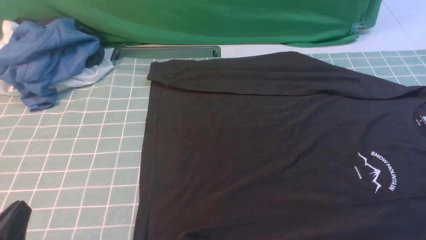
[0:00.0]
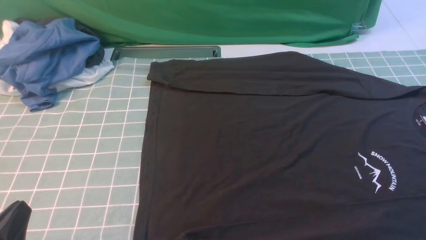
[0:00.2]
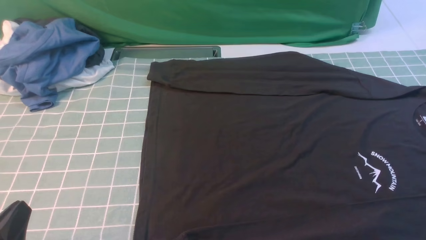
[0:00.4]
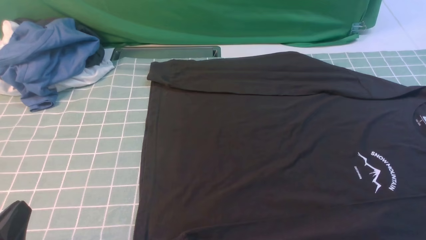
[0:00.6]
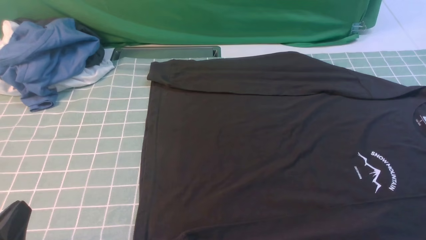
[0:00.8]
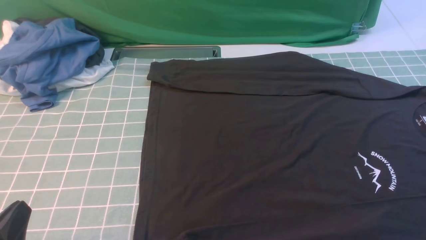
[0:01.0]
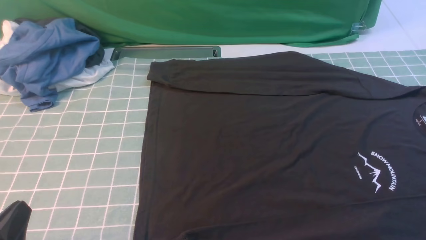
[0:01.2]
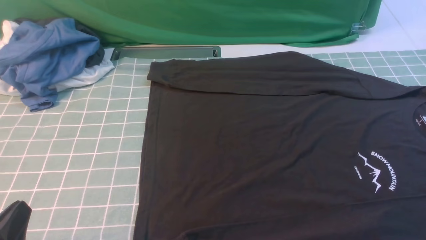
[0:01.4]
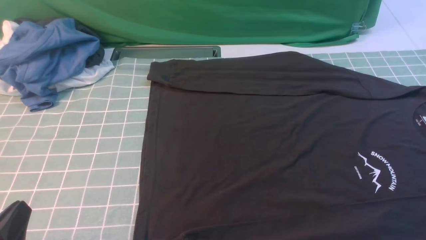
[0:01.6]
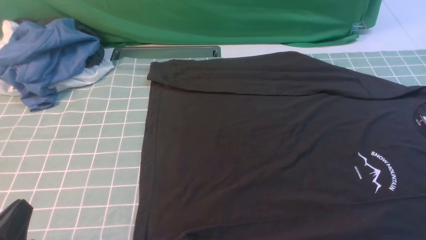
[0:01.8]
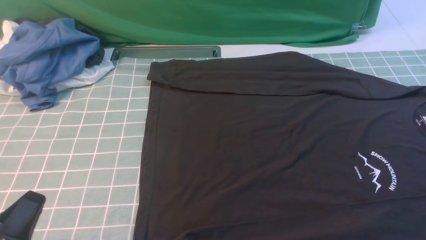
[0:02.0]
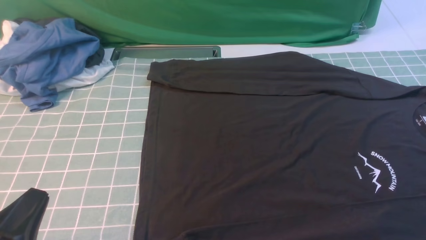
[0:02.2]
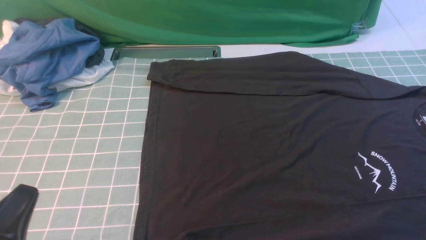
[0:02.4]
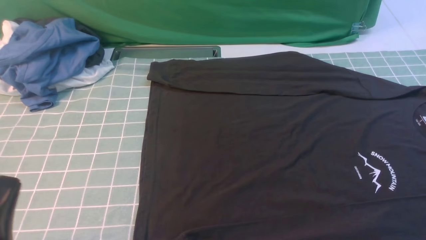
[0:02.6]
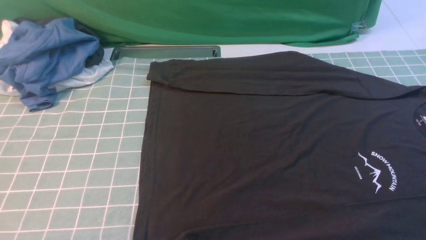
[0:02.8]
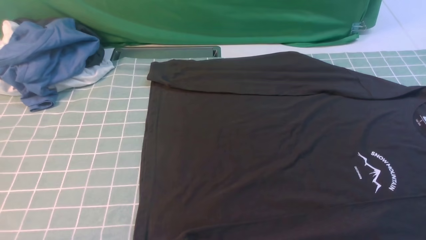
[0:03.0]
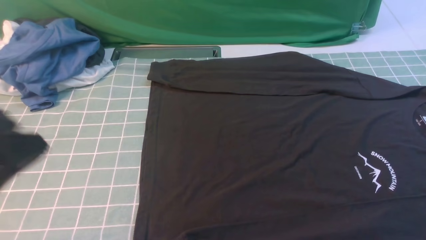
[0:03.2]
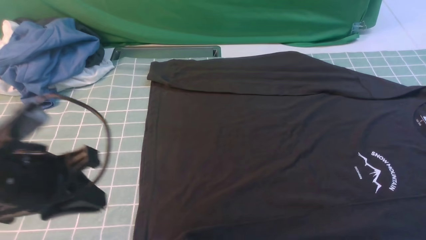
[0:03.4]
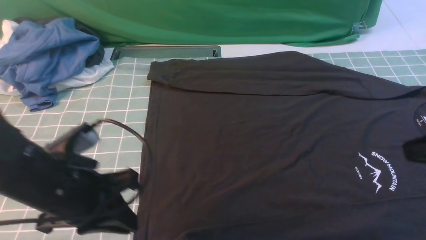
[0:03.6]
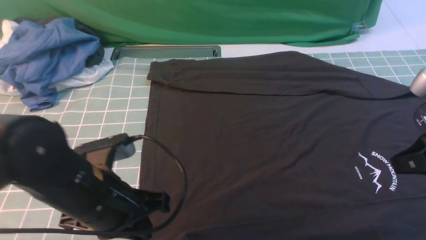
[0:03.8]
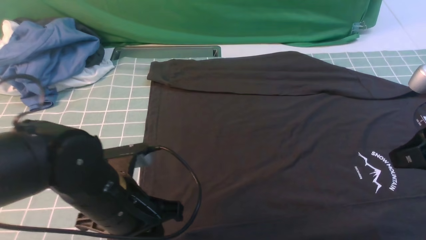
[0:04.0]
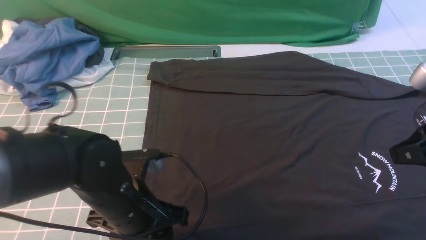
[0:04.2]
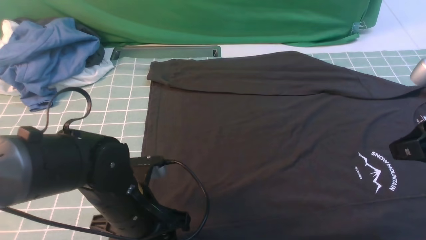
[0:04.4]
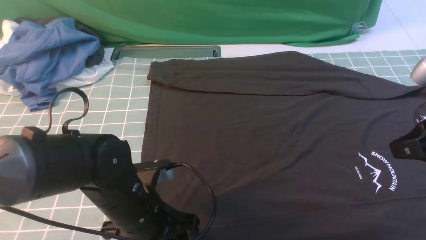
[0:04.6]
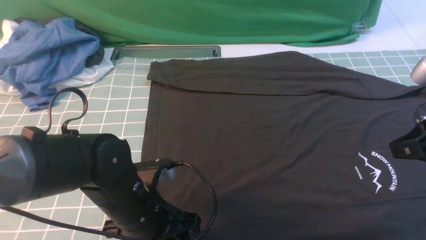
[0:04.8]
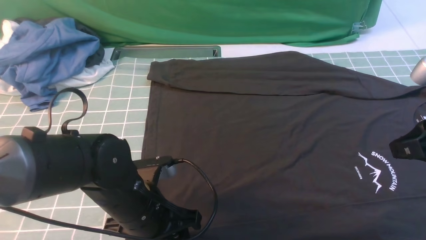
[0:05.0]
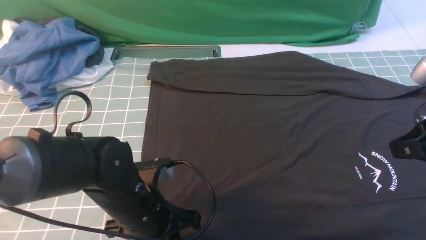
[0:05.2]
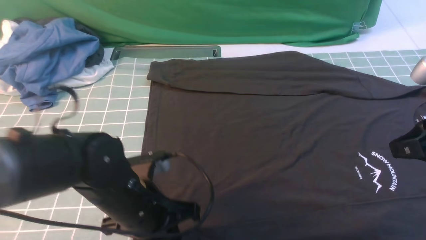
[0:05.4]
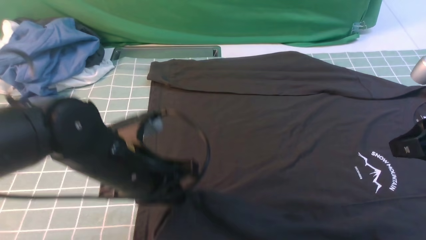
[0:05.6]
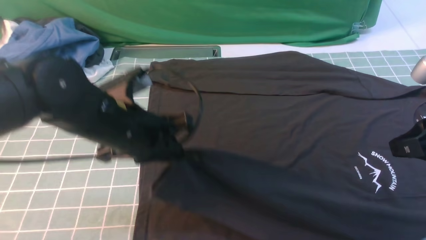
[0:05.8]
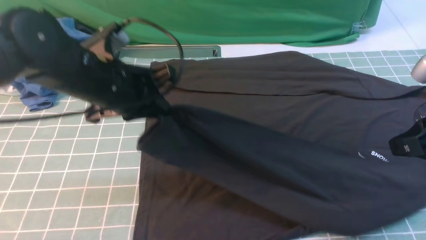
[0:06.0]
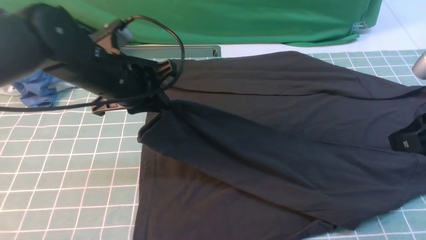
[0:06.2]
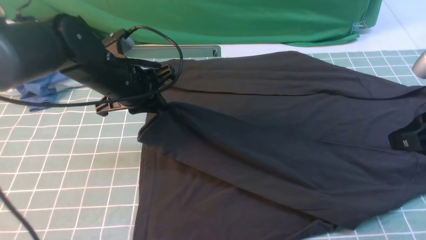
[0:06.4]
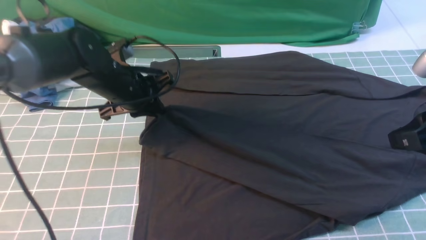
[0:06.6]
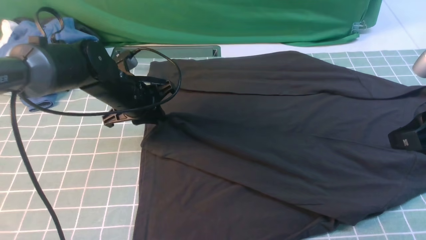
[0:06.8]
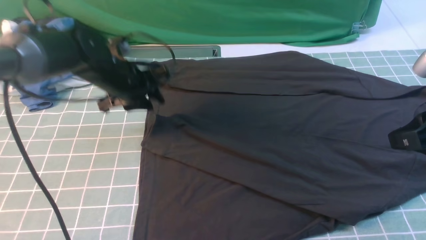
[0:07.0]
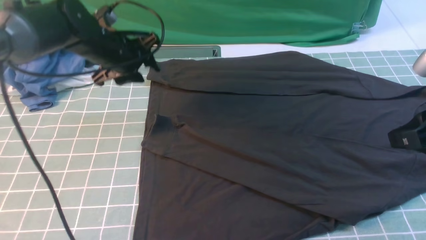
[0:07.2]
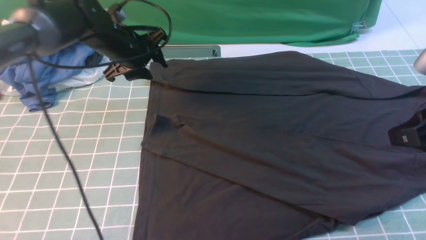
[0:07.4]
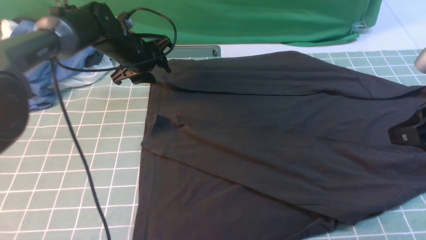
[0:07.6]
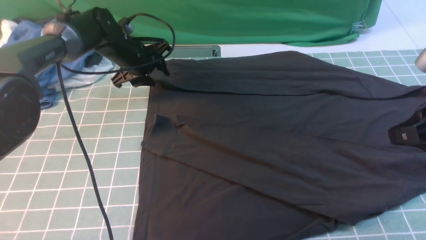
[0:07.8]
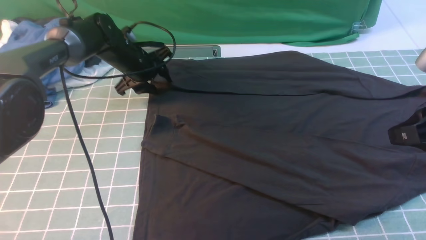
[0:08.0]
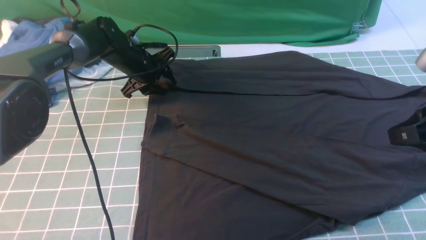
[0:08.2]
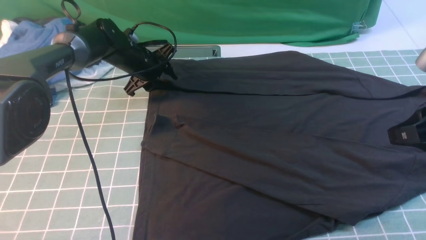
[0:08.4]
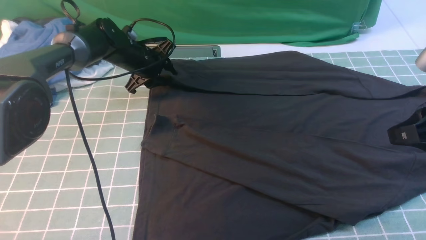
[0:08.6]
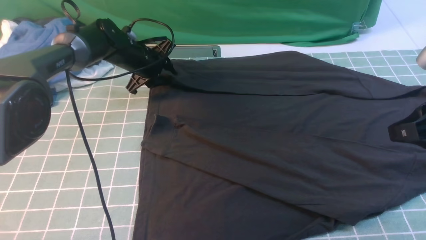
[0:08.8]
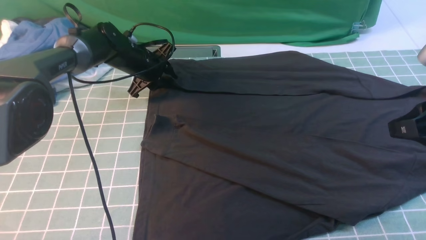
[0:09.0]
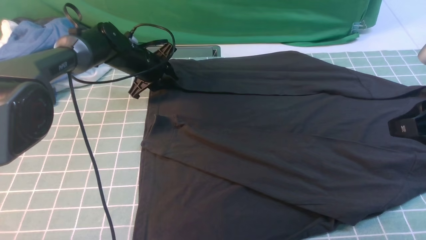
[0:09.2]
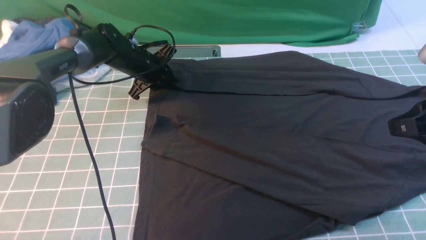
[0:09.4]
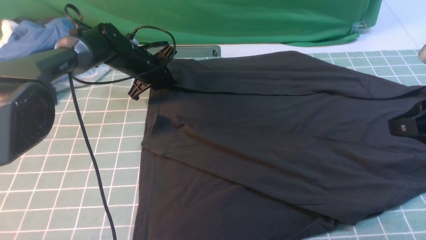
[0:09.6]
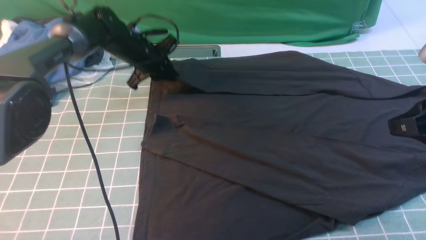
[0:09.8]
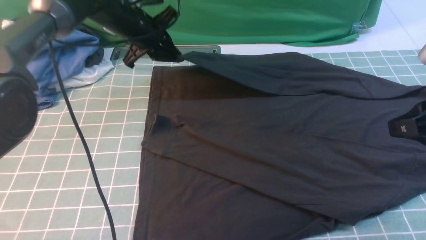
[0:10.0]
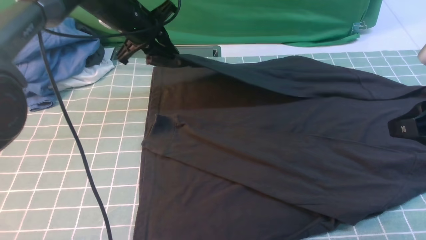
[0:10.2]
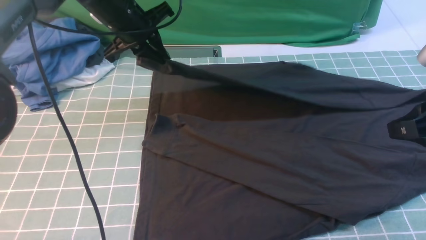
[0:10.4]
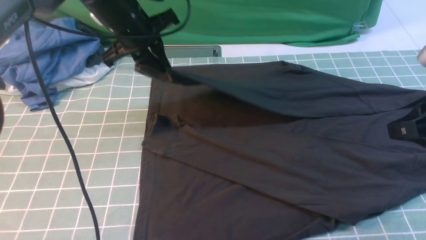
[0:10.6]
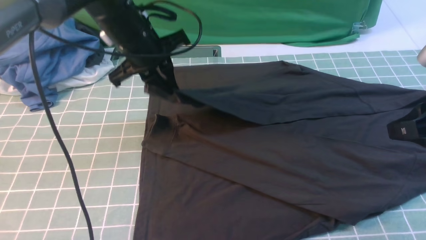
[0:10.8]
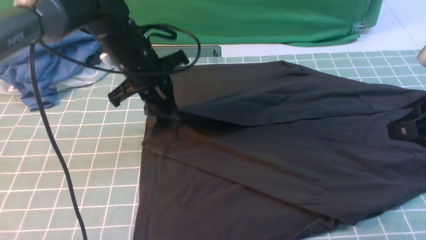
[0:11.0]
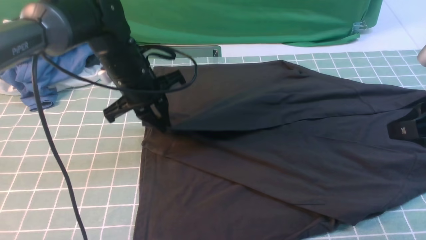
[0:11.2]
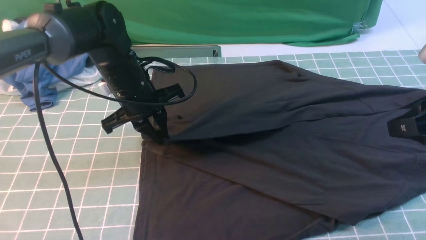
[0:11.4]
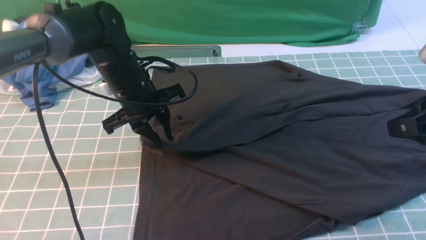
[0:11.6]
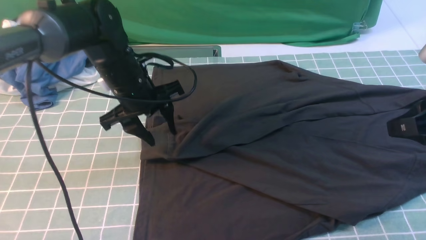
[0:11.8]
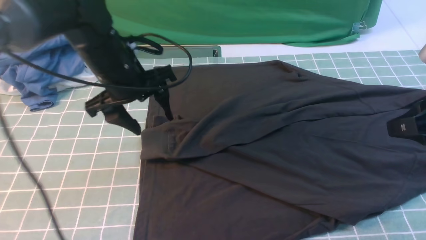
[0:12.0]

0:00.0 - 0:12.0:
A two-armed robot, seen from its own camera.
Step, 0:00.0 - 0:05.4: use the left arm to clamp the cuff closest to it.
Step, 0:05.6 - 0:07.0: use the left arm to drag and place the cuff at the centered position on the left edge of the fabric.
Step, 0:07.2 - 0:09.8: use the left arm to clamp the cuff farthest from it.
0:00.0 - 0:01.6: Neither gripper changes place.
0:01.6 - 0:03.0: The left gripper shifts roughly 10 cm upward.
0:03.0 - 0:04.4: The right gripper travels forward by approximately 15 cm. The left gripper travels downward, to the right and forward by approximately 25 cm, and opens.
0:04.4 - 0:06.0: The left gripper goes approximately 15 cm upward and forward, and closes.
0:06.0 - 0:07.6: The left gripper goes some 20 cm forward and downward, and opens its fingers.
0:07.6 - 0:09.0: There are only small adjustments of the grippers.
0:09.0 - 0:10.4: The left gripper moves upward and backward, approximately 15 cm, and closes.
0:10.4 - 0:12.0: The left gripper goes approximately 10 cm backward, and opens up.

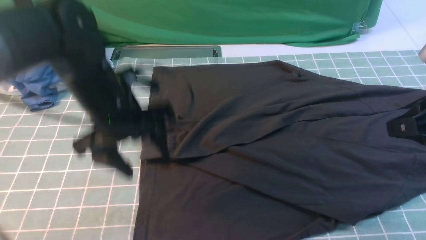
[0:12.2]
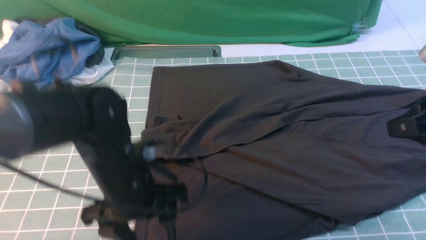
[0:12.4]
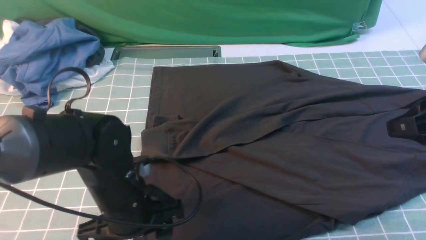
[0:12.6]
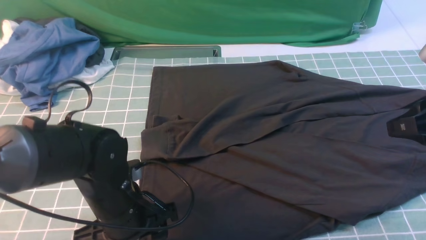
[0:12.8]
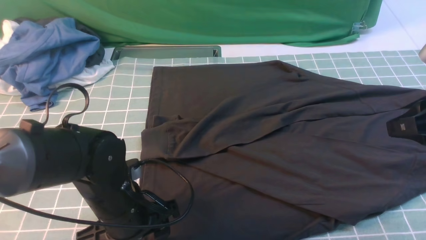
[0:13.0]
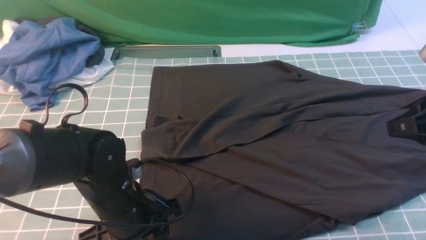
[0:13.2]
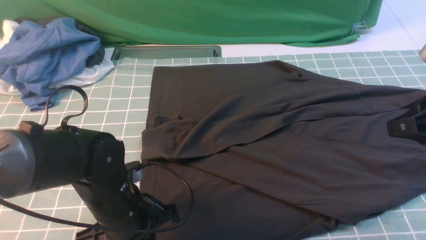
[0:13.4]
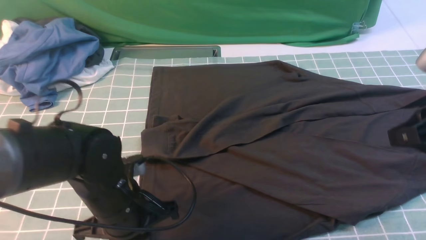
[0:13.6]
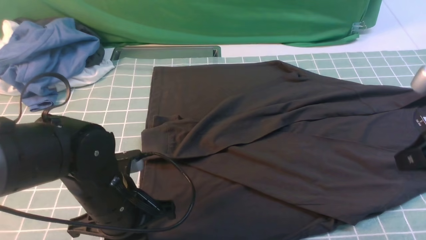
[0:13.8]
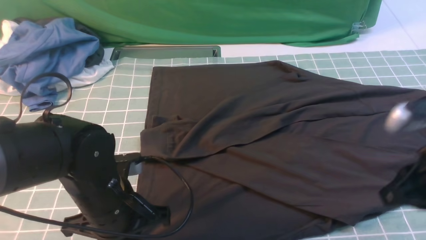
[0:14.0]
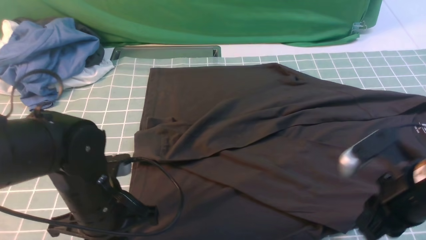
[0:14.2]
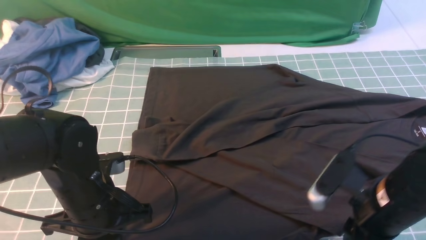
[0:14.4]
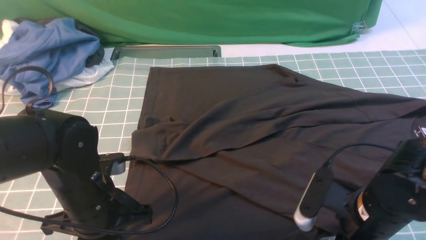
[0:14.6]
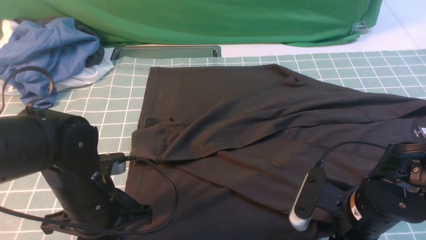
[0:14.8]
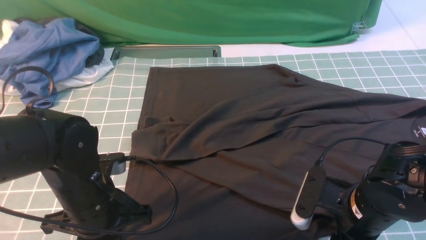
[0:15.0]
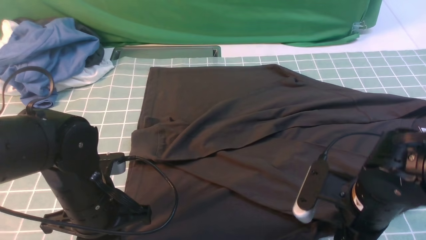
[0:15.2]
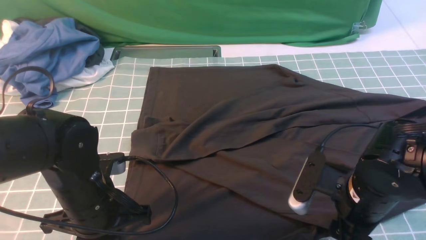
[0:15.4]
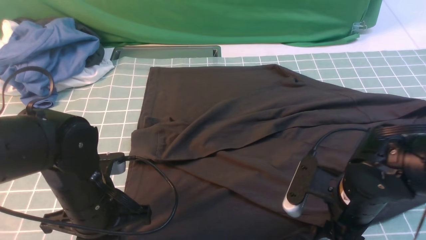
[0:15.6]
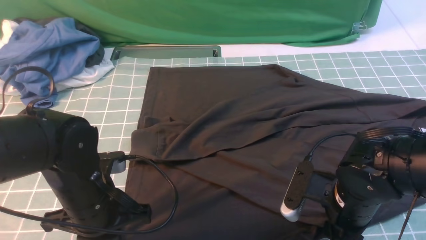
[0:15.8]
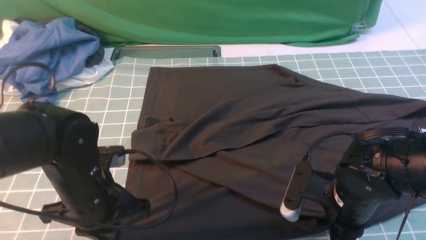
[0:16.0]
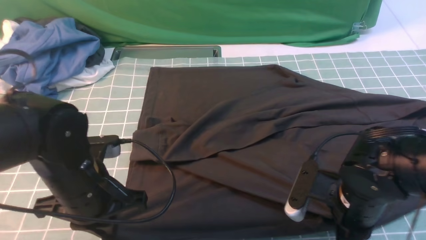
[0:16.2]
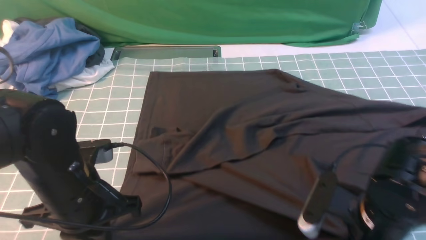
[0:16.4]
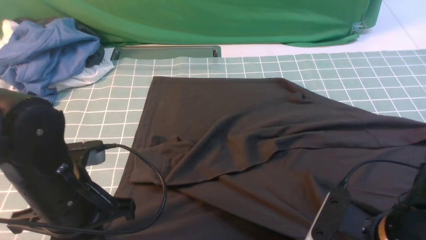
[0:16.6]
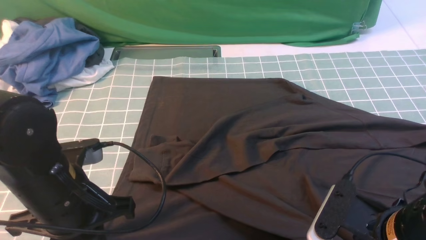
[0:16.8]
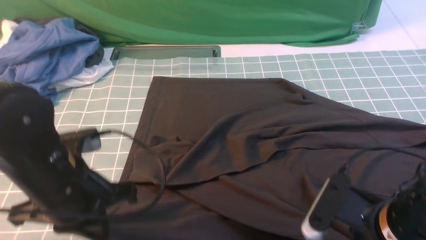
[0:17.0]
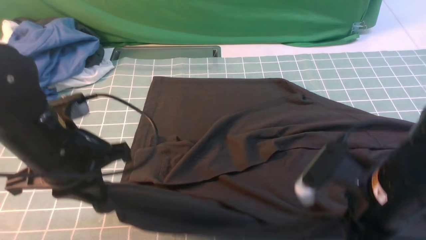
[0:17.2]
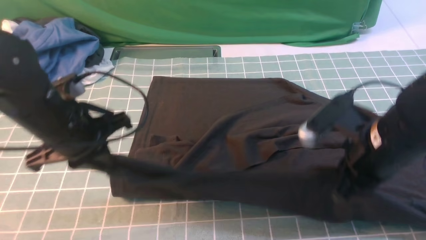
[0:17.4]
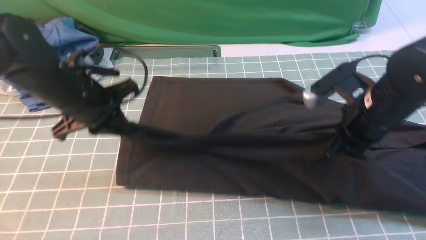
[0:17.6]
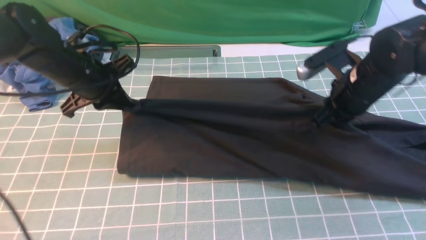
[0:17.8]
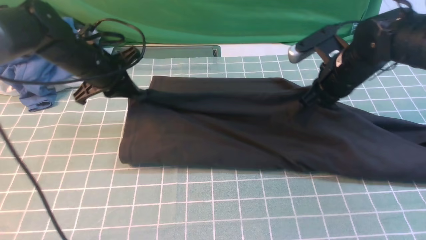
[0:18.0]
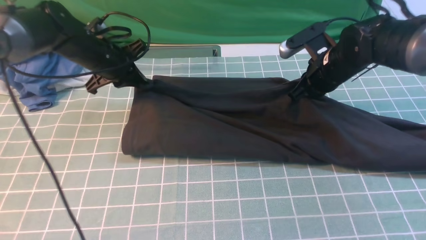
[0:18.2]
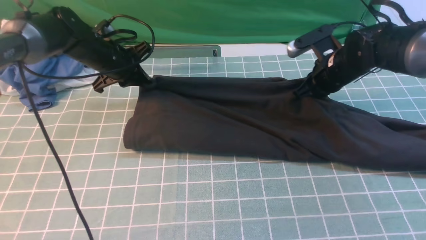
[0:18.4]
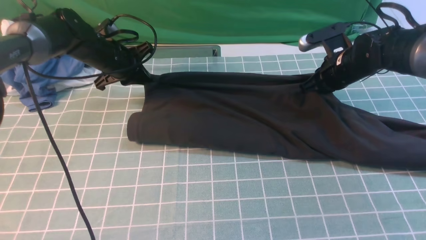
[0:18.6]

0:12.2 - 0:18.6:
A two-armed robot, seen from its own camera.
Step, 0:12.2 - 0:17.0: use both arms simultaneously to clamp the lower edge of the clothing fabric.
0:12.2 - 0:13.8: The left gripper shifts roughly 10 cm backward and downward, and closes.
0:13.8 - 0:15.4: The right gripper moves downward and to the left, about 15 cm, and opens up.
0:15.4 - 0:17.0: The right gripper shifts about 5 cm backward, and closes its fingers. Meanwhile the left gripper is displaced upward by roughly 5 cm.
0:17.0 - 0:18.6: Both grippers move forward, approximately 30 cm.
